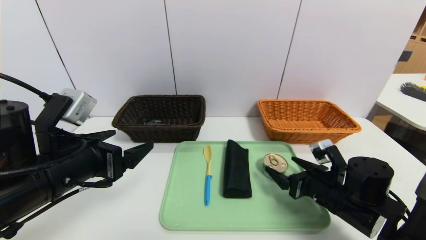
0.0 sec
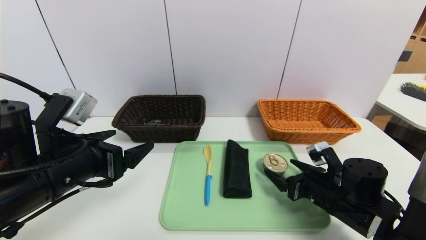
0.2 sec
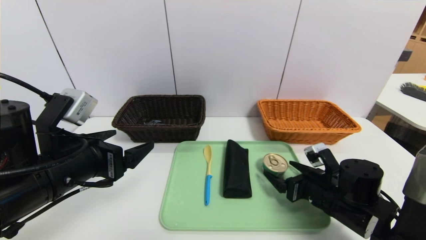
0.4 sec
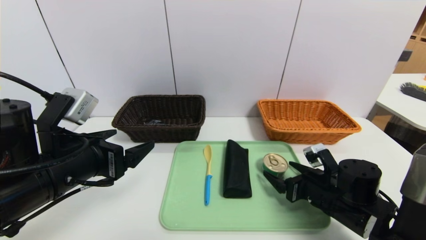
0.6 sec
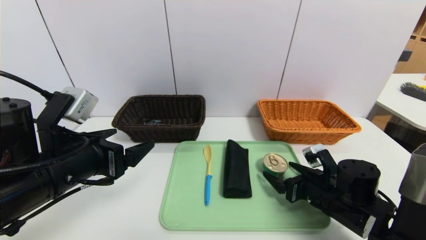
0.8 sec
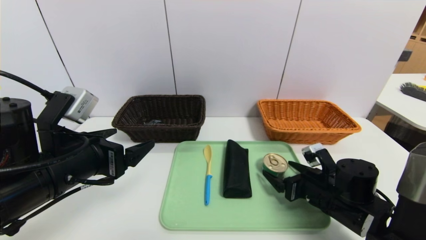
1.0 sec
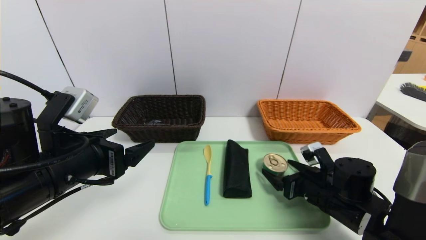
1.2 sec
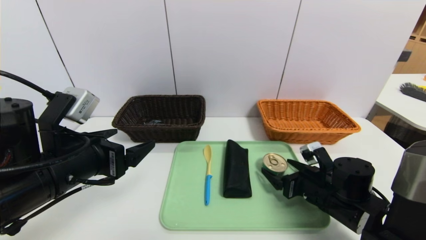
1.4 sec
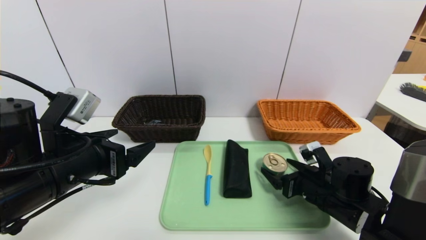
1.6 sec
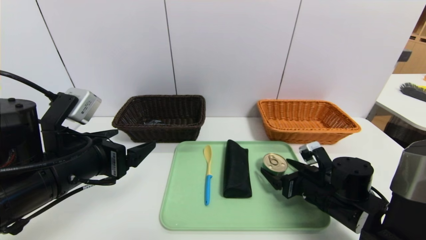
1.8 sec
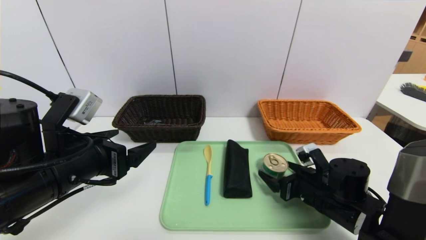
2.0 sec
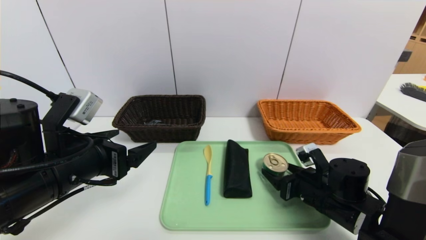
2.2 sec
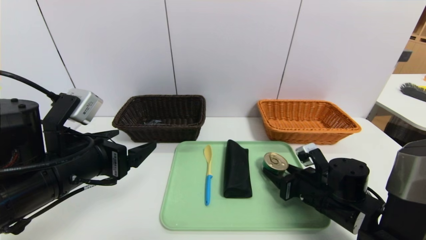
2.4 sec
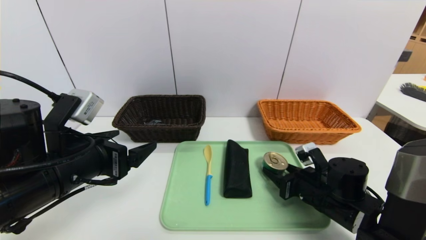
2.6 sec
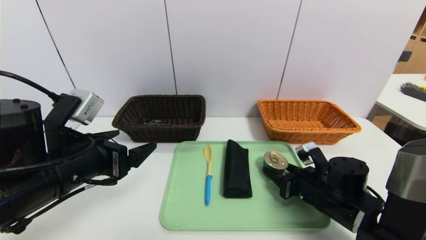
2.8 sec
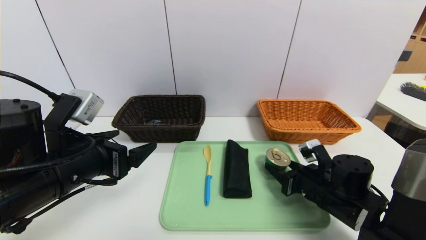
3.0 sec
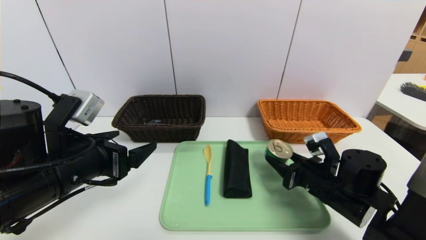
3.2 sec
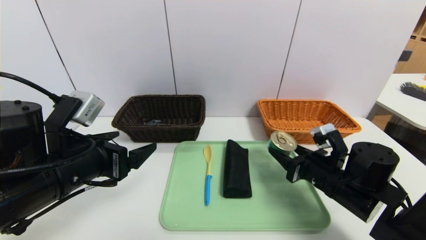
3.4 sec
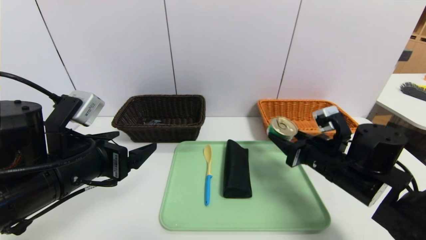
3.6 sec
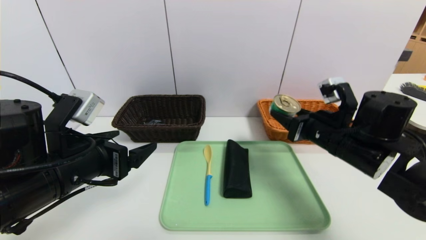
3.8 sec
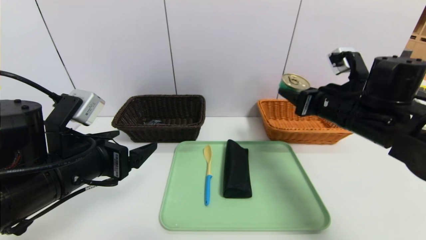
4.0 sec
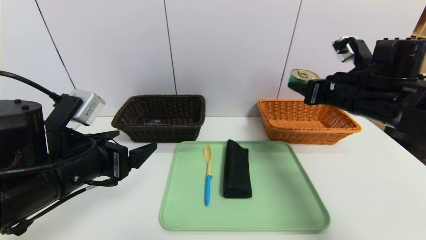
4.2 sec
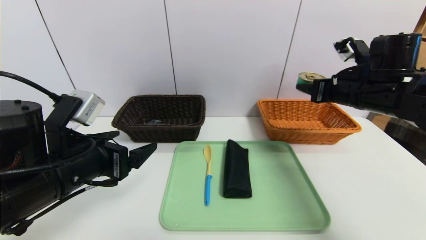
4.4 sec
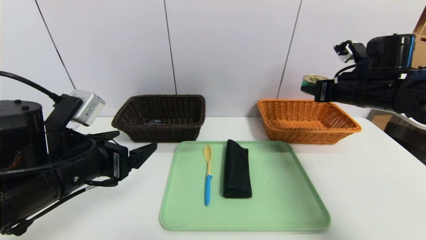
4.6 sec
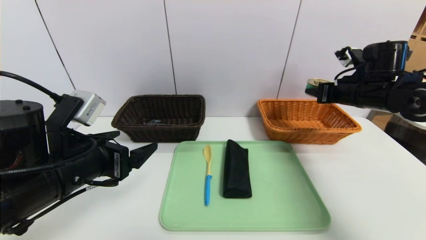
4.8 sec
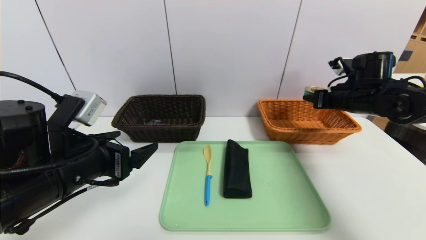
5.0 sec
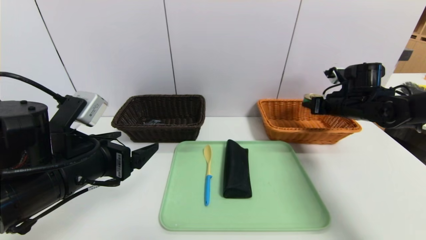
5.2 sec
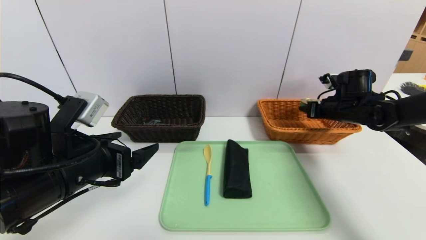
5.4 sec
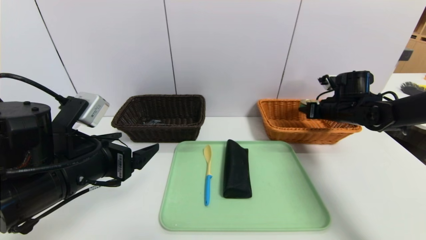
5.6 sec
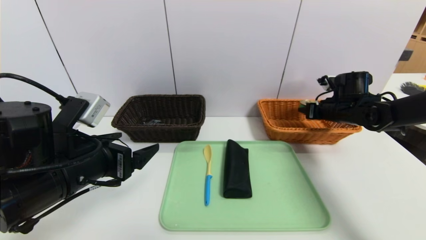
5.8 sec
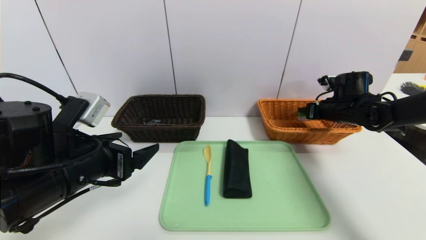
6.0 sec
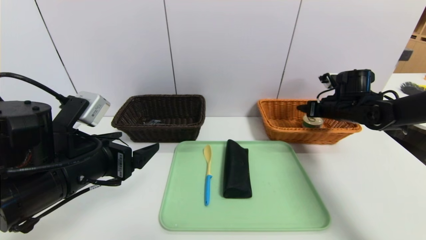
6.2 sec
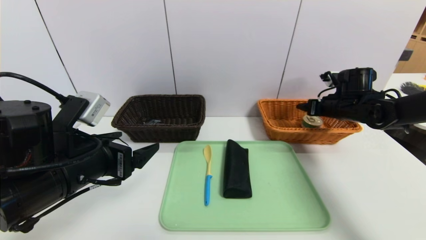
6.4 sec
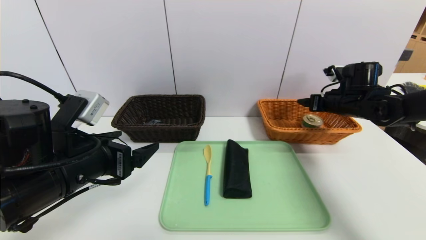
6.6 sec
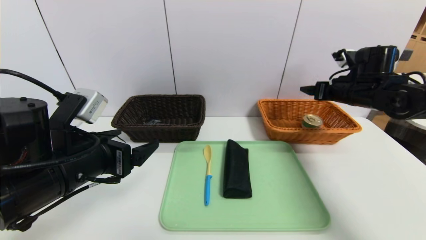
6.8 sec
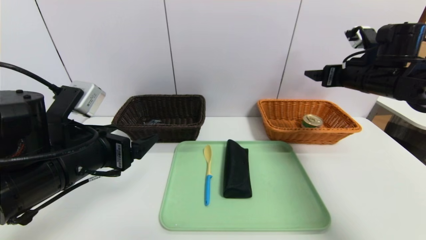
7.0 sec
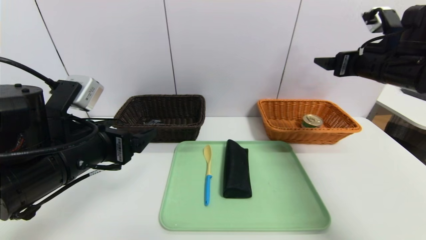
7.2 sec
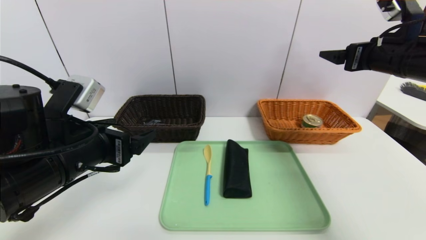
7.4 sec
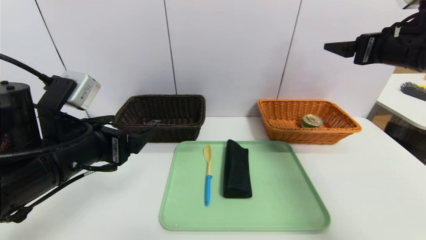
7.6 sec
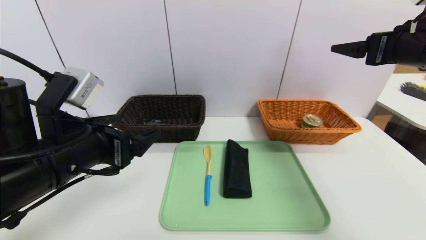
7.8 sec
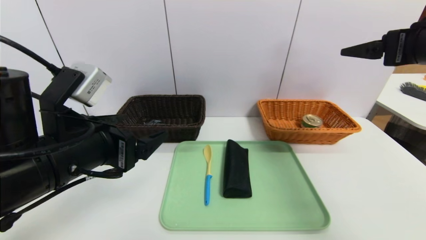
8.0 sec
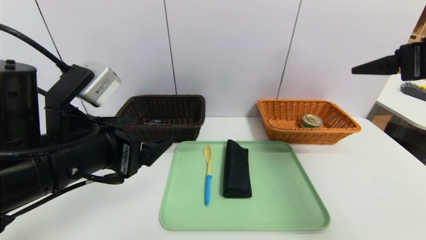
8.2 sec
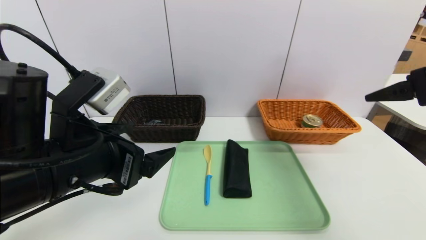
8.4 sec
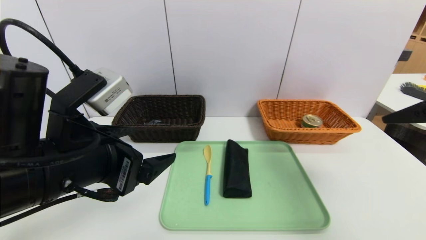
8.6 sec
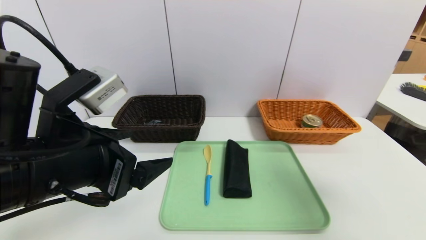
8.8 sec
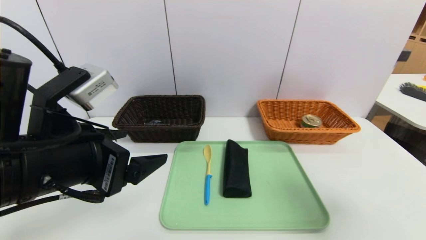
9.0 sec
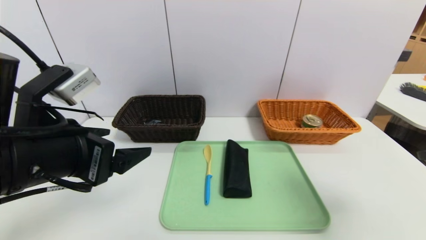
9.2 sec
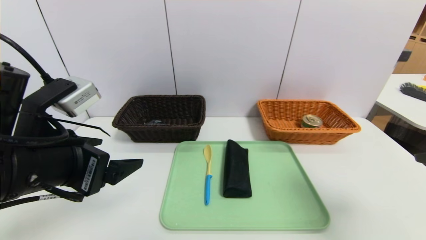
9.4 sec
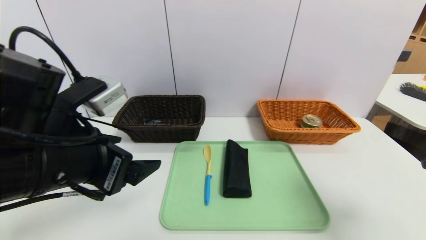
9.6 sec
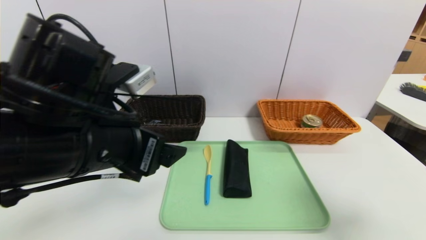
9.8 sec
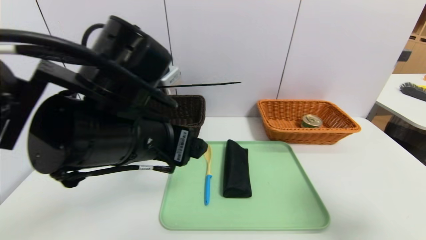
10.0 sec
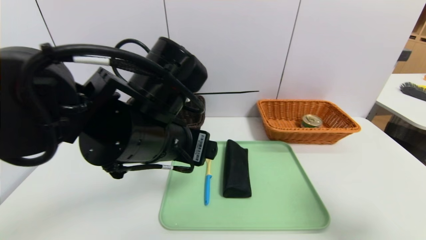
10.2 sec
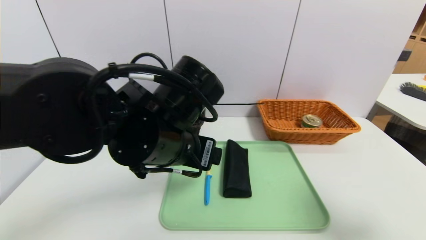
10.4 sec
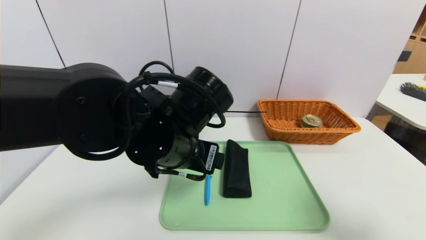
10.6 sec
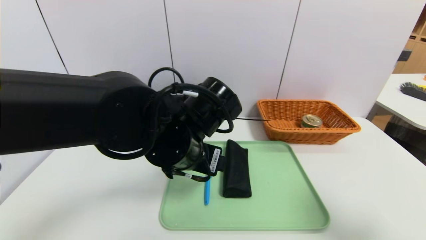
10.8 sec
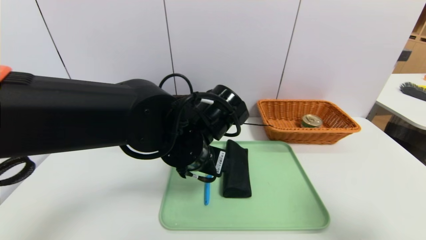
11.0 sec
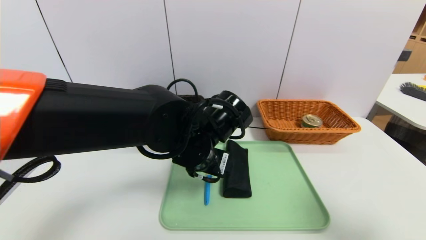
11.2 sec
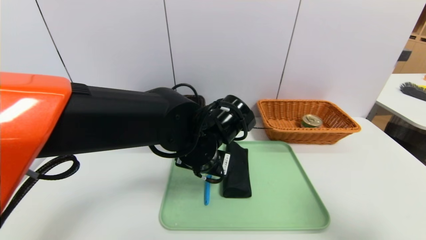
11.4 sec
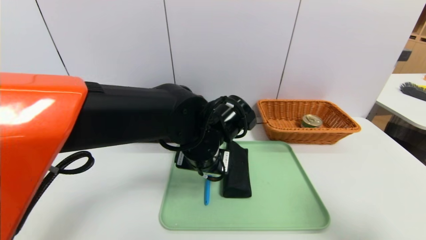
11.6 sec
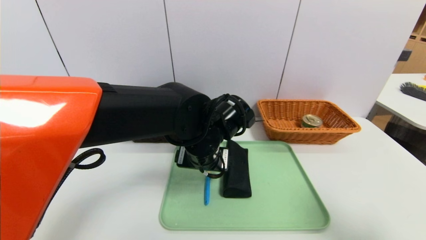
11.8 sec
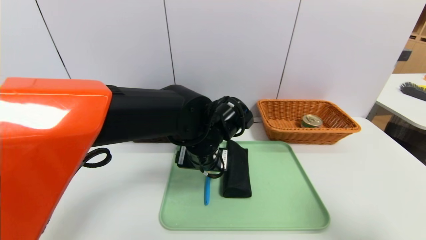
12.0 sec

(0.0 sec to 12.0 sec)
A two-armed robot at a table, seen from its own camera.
Task of the whole recording: place the food in the right basket with the right gripper, and place the non food items in the left basket with the left gripper.
Step, 0.0 sec - 6.2 sec: Grasp the can and put it in the right basket.
0.0 sec - 1.6 sec: There are only small adjustments of the grippers.
1.6 sec - 3.0 sec: The right gripper closes.
3.0 sec - 4.4 sec: The right gripper travels upward by roughly 20 cm.
4.4 sec - 6.0 sec: The right gripper moves forward, downward and to the right, some 15 cm.
6.0 sec - 7.6 sec: The right gripper moves upward and backward, about 20 cm, and opens its fingers.
7.6 sec - 9.0 sec: The left gripper ends up approximately 5 cm from where it was; the right gripper goes roughly 20 cm backward.
9.0 sec - 10.4 sec: The left gripper shifts about 15 cm to the right and forward, while the right gripper changes place by approximately 5 cm.
10.4 sec - 12.0 sec: The left gripper goes about 10 cm downward, forward and to the right.

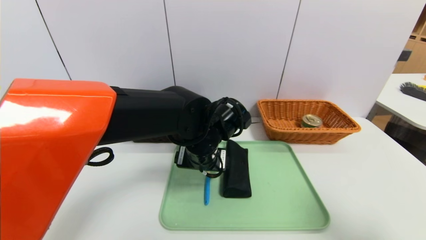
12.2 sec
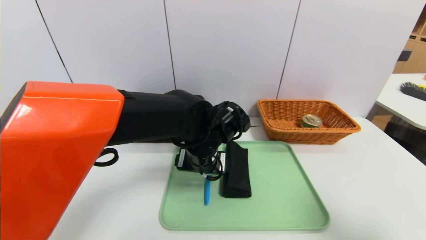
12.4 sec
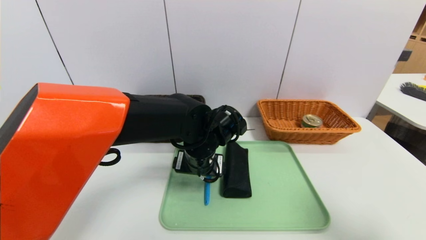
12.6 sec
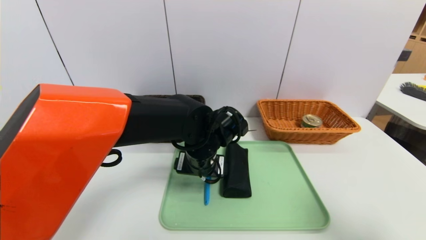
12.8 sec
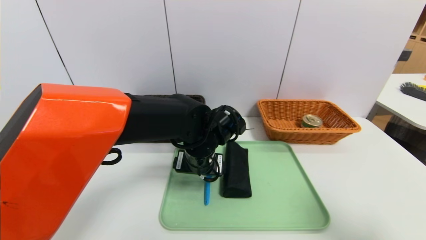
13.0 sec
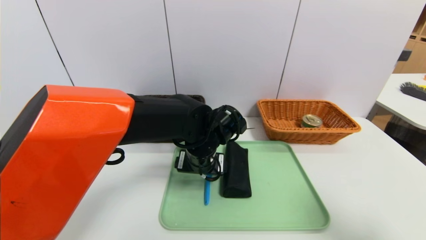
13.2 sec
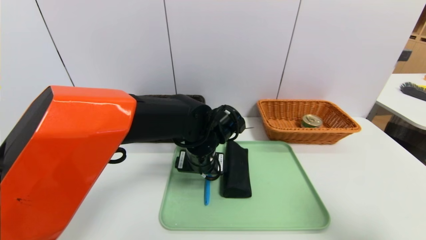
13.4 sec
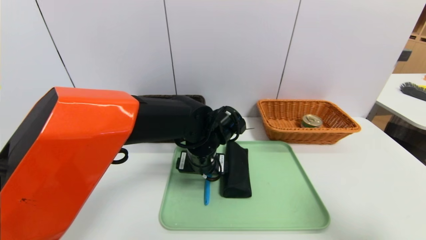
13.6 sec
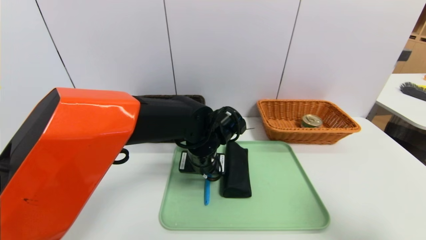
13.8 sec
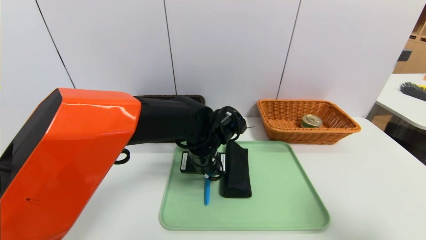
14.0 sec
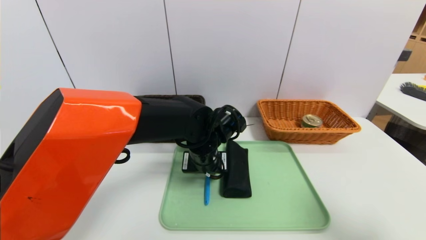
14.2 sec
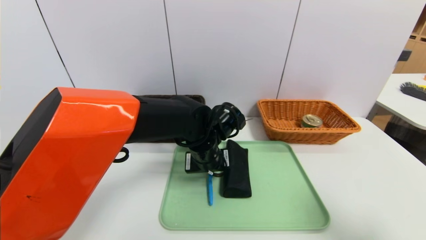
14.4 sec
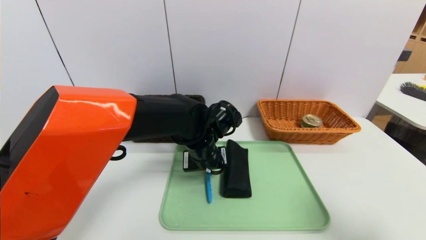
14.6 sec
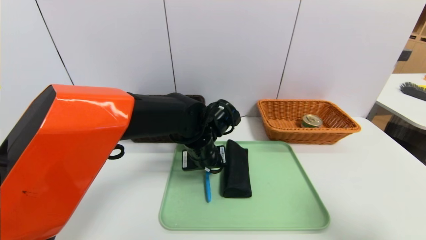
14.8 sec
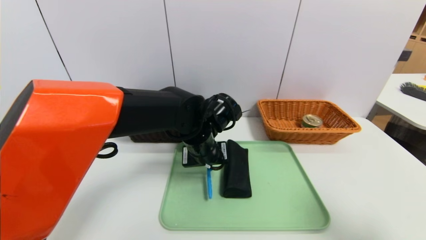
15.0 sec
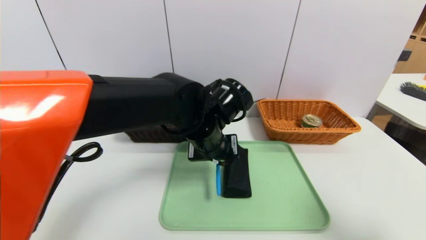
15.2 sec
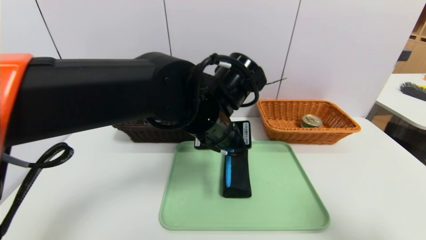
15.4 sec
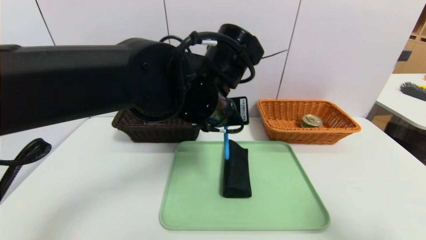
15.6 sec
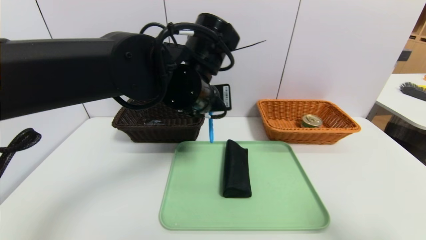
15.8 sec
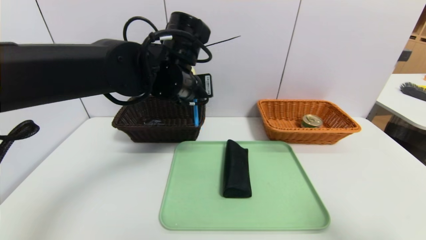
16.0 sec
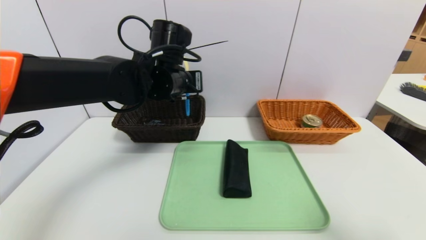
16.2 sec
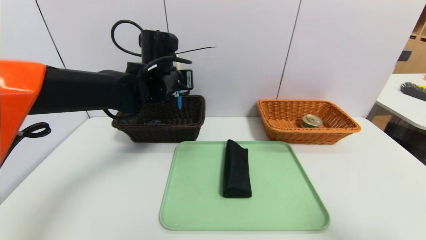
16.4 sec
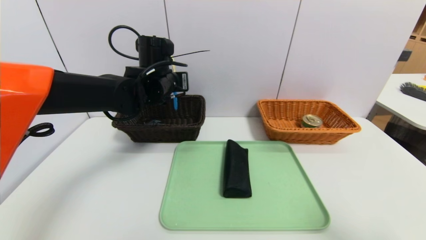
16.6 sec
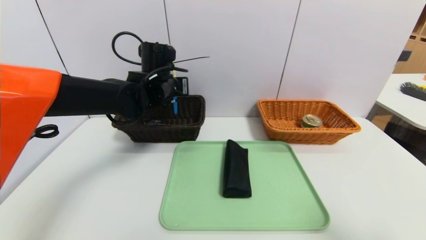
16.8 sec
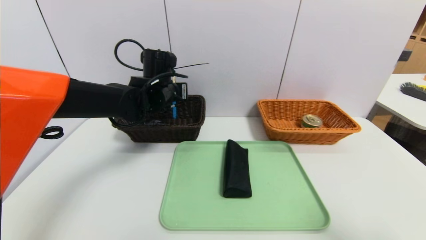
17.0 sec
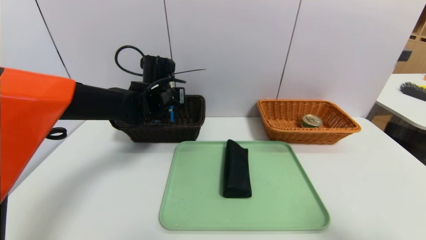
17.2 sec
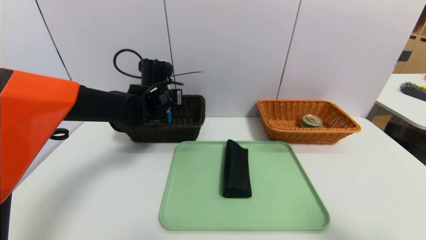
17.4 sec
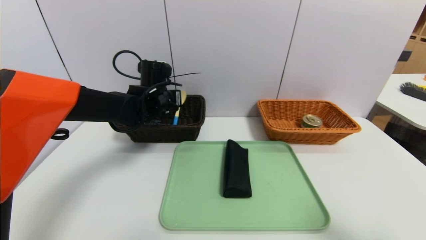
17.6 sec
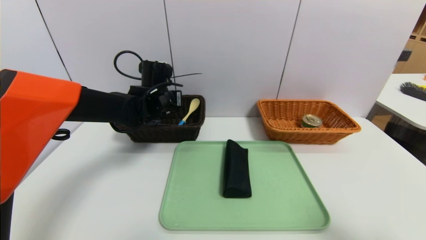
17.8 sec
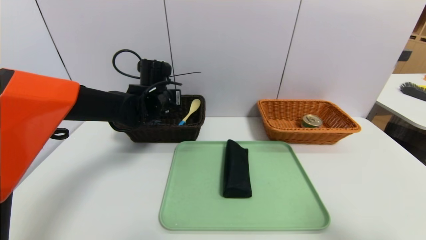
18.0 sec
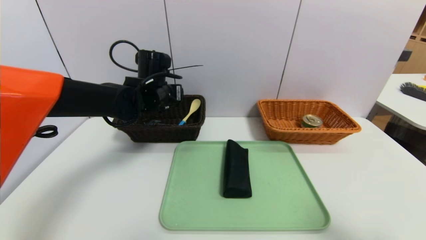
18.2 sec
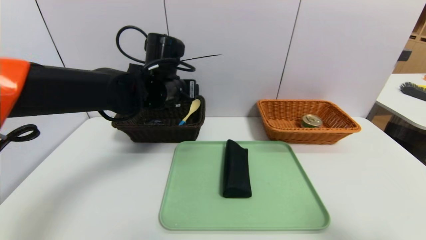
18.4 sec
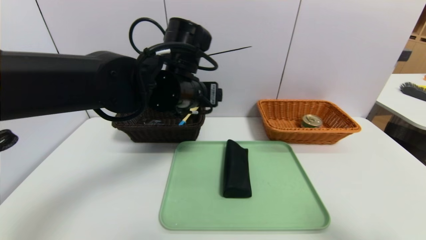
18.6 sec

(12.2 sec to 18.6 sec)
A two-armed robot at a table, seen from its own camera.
Task of the whole recording: place the food in the right basket with the right gripper, and place the non food items in the left basket with the left gripper.
Step, 12.2 sec - 17.8 sec: Grasp the spoon and put it in the left basket.
12.2 sec - 13.8 sec: The grippers make only small movements.
13.8 sec - 15.4 sec: The left gripper is displaced upward by about 10 cm, and closes its fingers.
15.4 sec - 17.0 sec: The left gripper is displaced forward and to the left by some 20 cm.
17.0 sec - 18.6 sec: The left gripper is displaced backward, to the right and upward by approximately 15 cm, and opens up.
